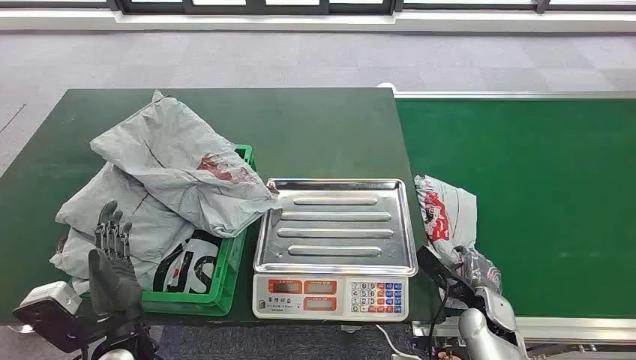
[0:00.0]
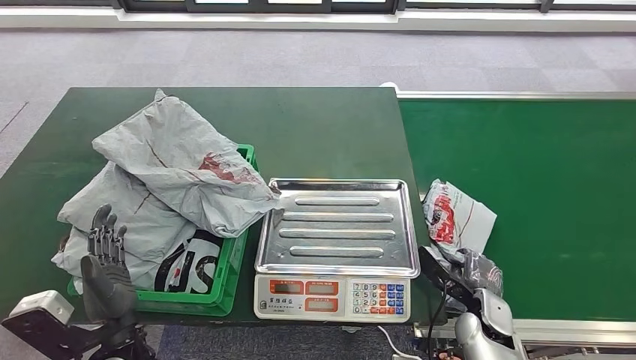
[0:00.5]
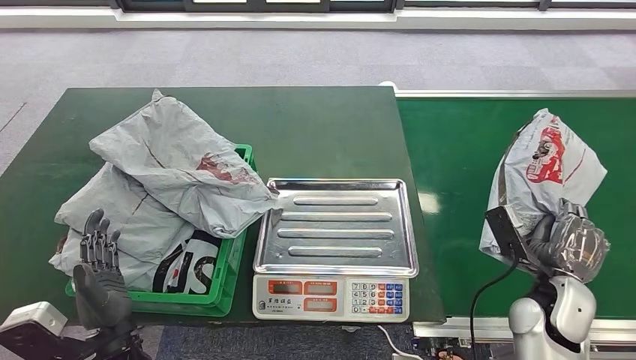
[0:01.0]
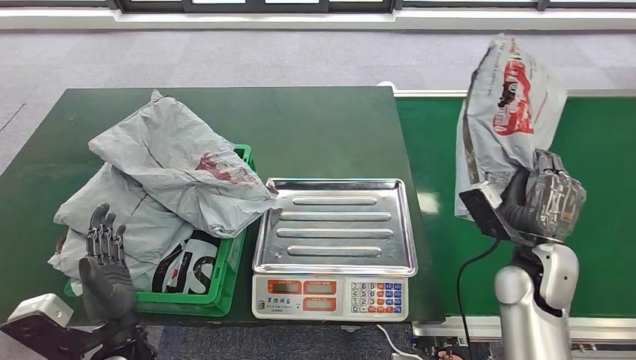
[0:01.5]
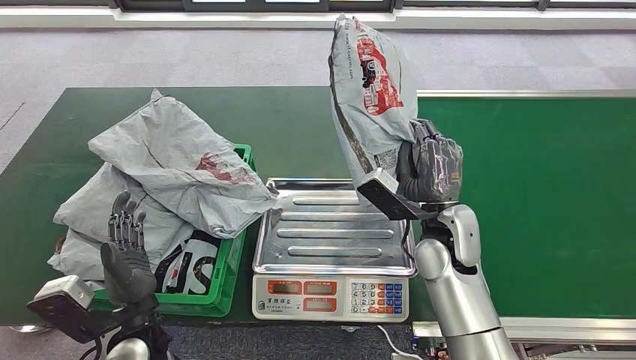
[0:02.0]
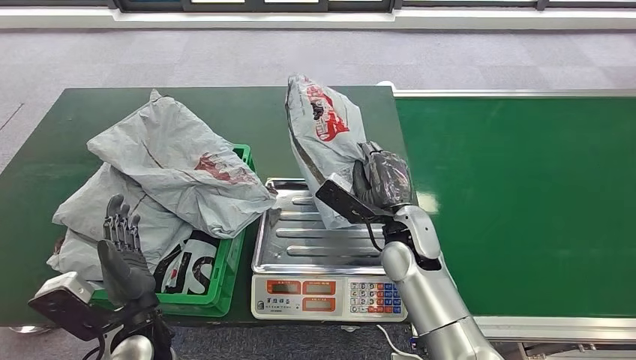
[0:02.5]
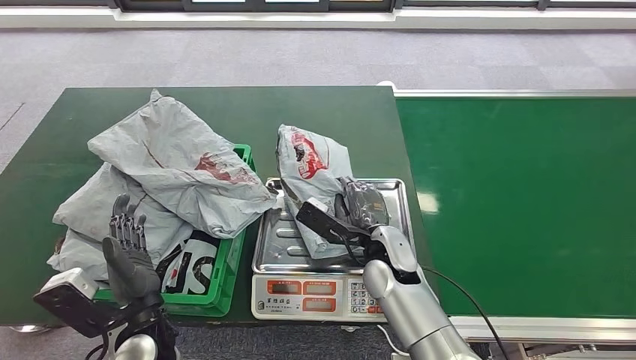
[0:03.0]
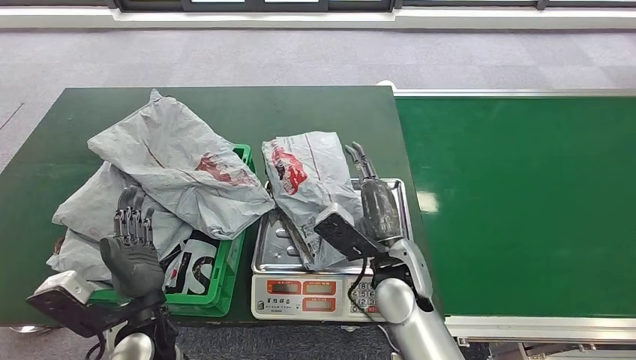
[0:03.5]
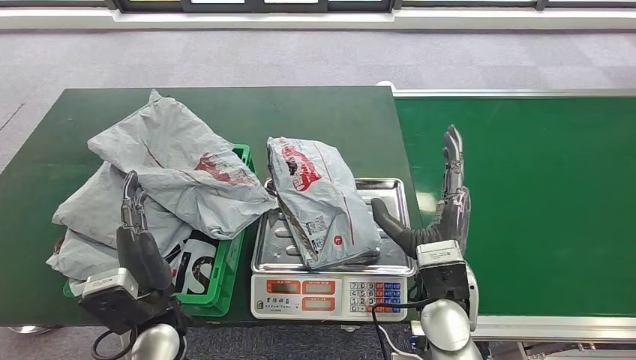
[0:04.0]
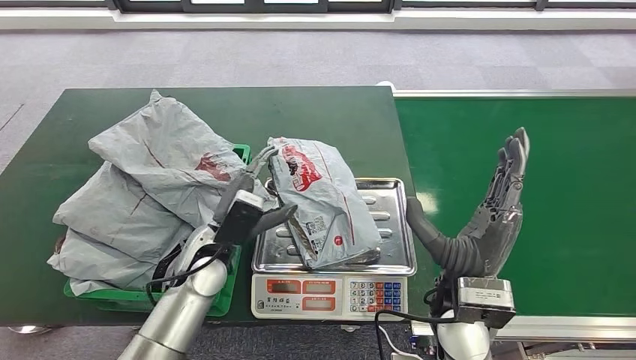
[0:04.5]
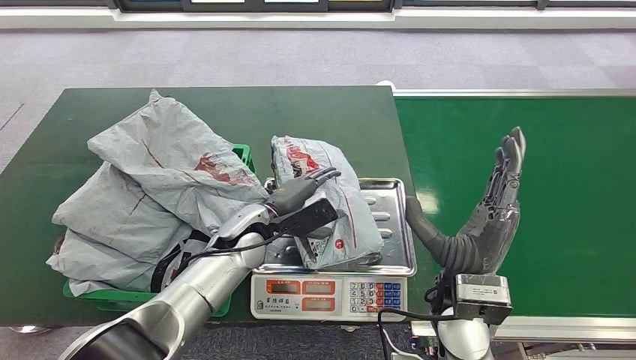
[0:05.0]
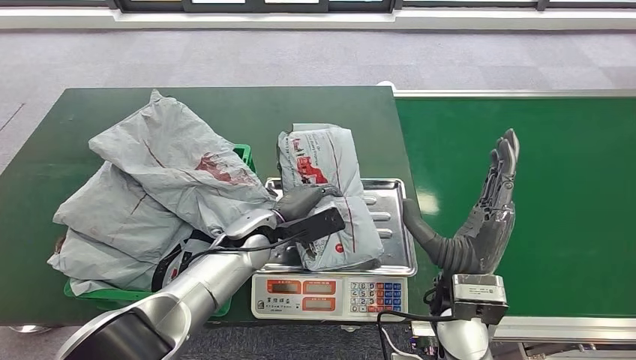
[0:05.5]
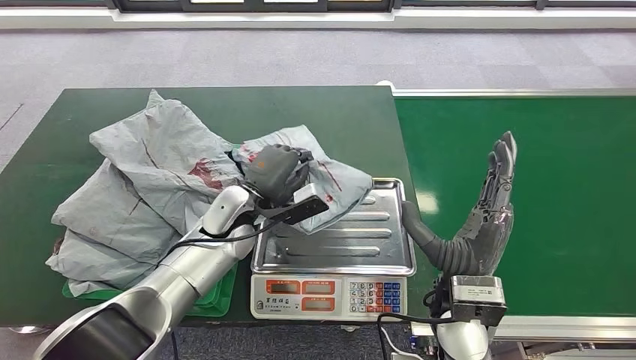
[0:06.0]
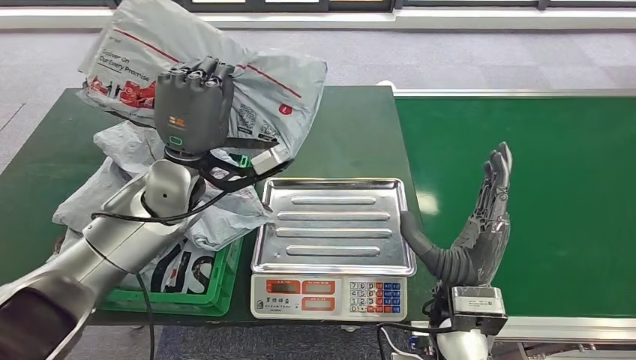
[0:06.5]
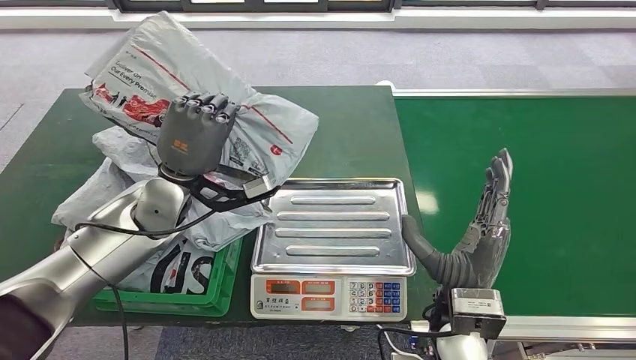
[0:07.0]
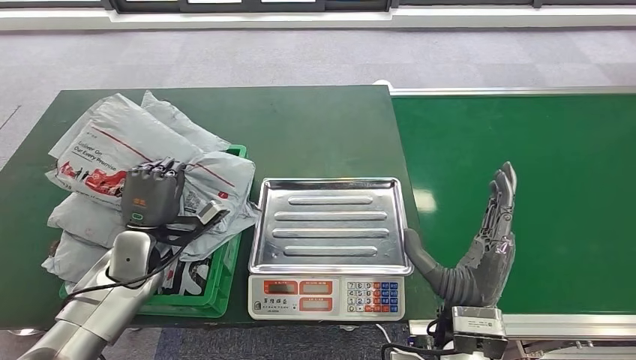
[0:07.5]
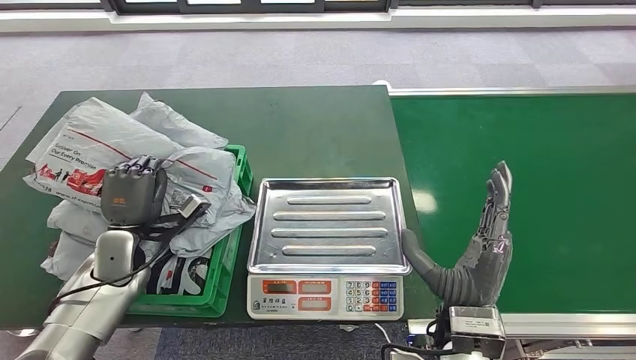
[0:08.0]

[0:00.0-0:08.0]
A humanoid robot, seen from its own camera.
Step, 0:00.0 to 0:01.0: Pick up the package from the conveyor belt.
Step, 0:01.5 to 0:03.5: Place the package onto the inbound machine.
Step, 0:04.0 to 0:06.0: Pick up the package from the inbound machine.
Step, 0:06.5 to 0:08.0: Place the package into the parcel locker.
